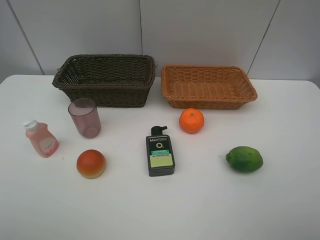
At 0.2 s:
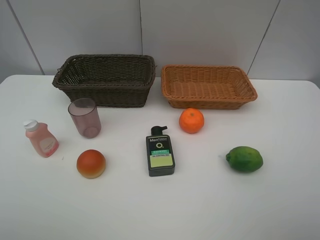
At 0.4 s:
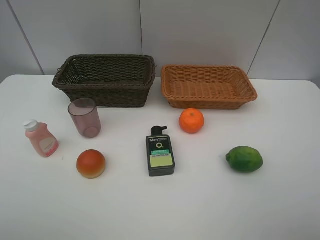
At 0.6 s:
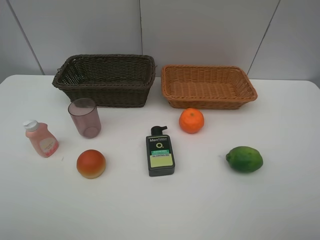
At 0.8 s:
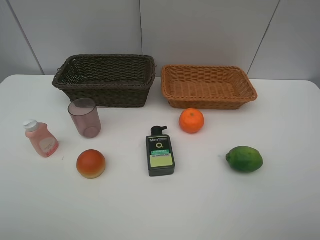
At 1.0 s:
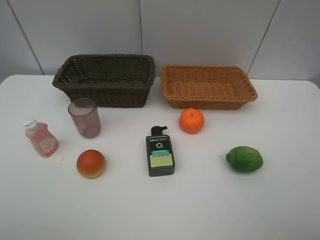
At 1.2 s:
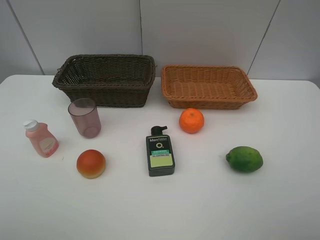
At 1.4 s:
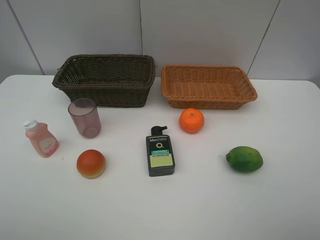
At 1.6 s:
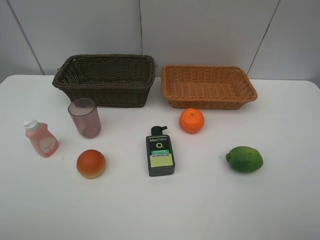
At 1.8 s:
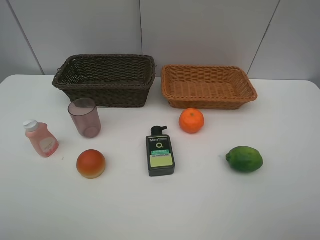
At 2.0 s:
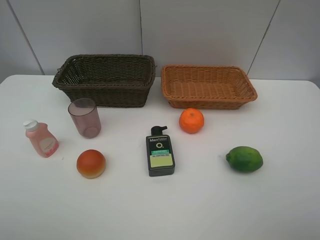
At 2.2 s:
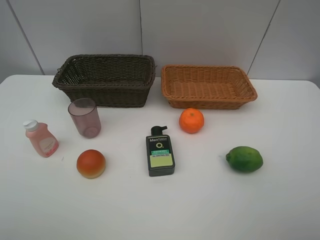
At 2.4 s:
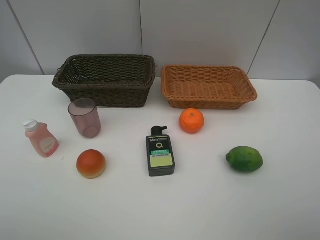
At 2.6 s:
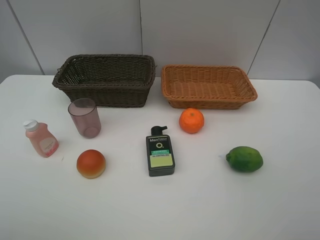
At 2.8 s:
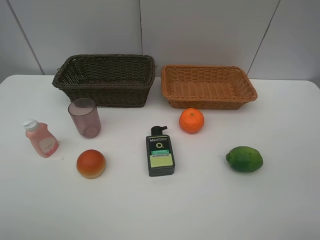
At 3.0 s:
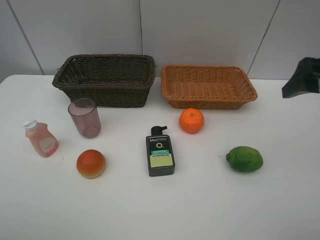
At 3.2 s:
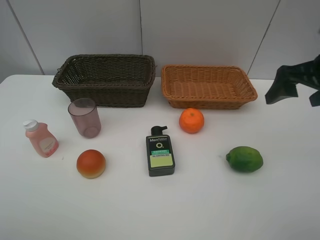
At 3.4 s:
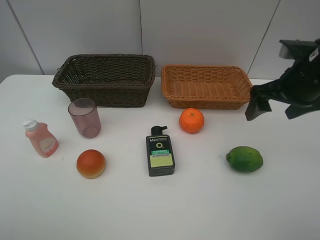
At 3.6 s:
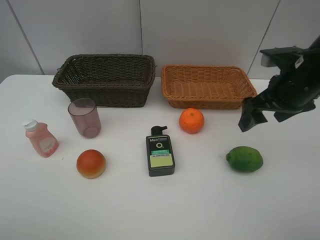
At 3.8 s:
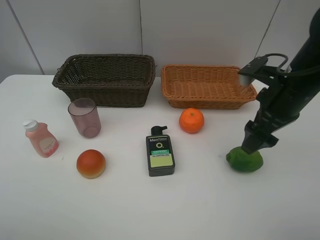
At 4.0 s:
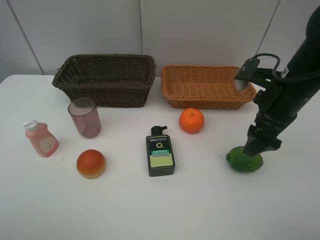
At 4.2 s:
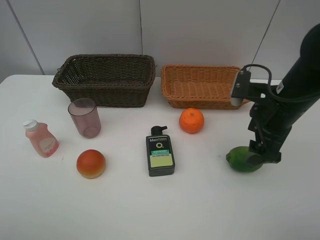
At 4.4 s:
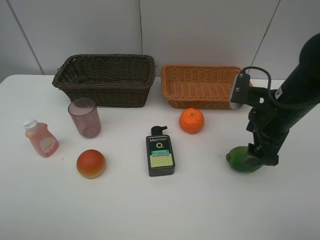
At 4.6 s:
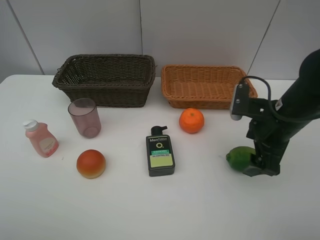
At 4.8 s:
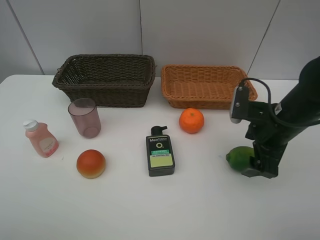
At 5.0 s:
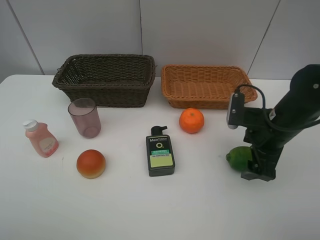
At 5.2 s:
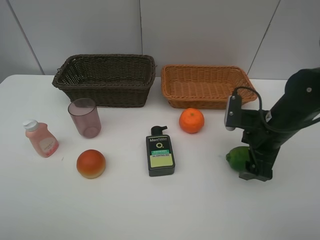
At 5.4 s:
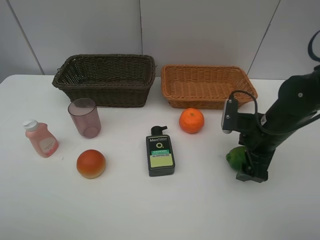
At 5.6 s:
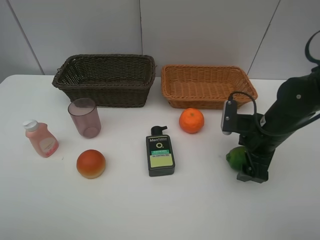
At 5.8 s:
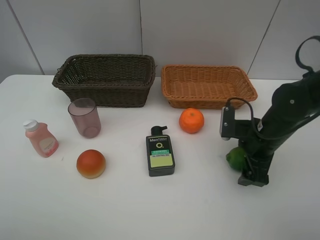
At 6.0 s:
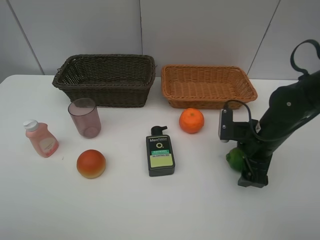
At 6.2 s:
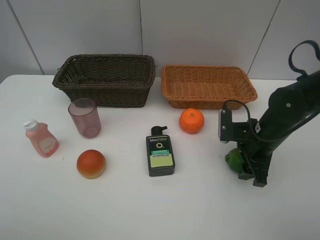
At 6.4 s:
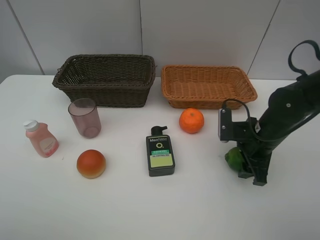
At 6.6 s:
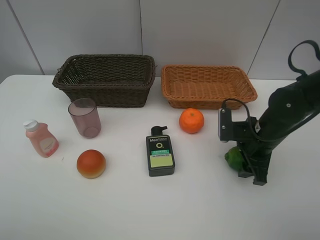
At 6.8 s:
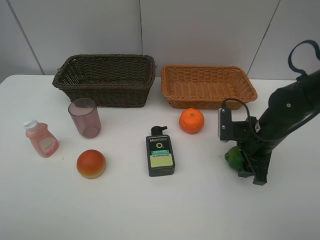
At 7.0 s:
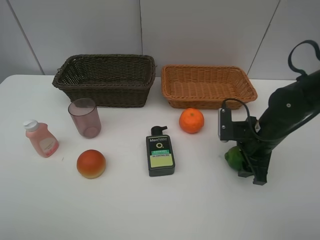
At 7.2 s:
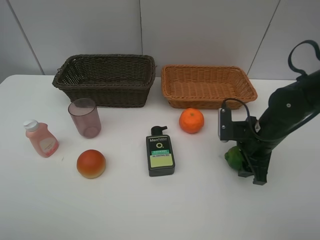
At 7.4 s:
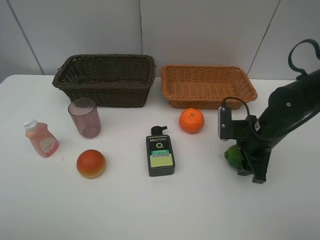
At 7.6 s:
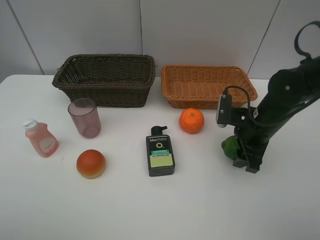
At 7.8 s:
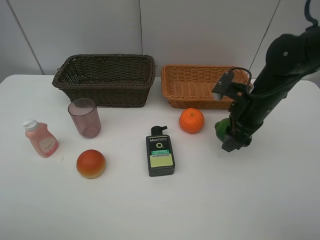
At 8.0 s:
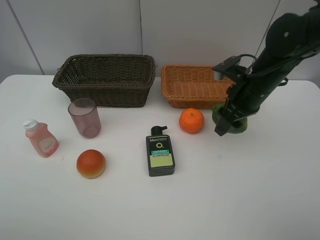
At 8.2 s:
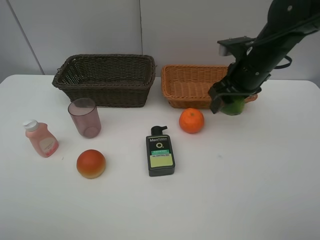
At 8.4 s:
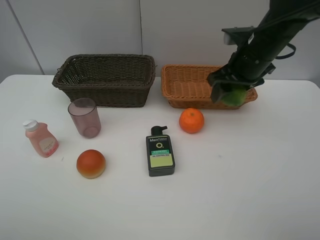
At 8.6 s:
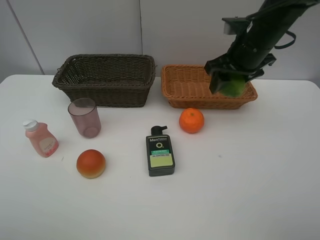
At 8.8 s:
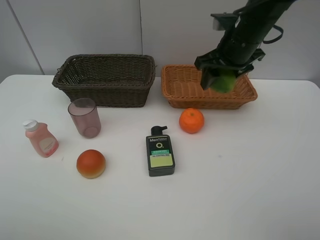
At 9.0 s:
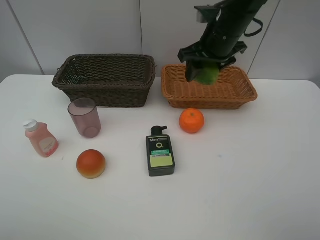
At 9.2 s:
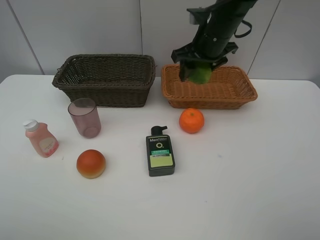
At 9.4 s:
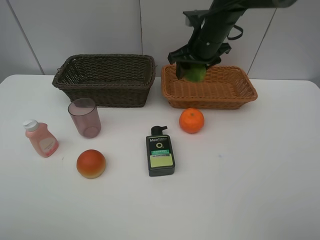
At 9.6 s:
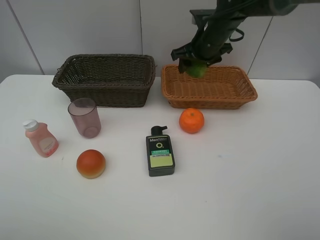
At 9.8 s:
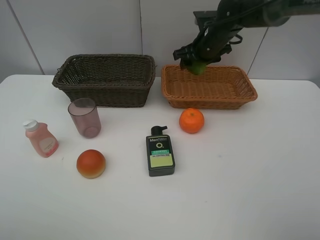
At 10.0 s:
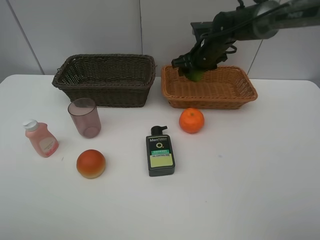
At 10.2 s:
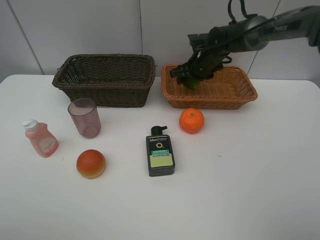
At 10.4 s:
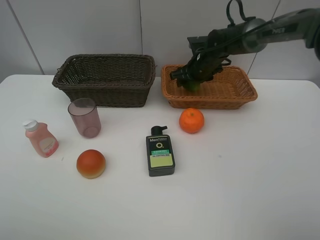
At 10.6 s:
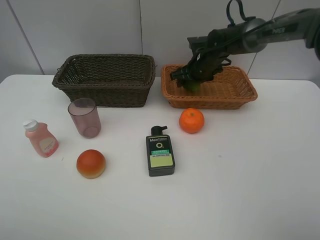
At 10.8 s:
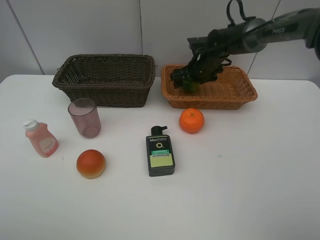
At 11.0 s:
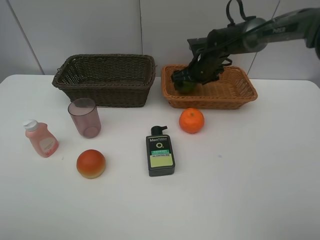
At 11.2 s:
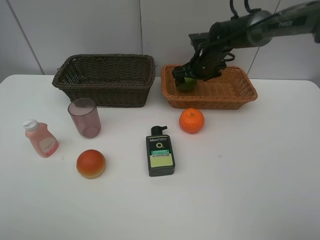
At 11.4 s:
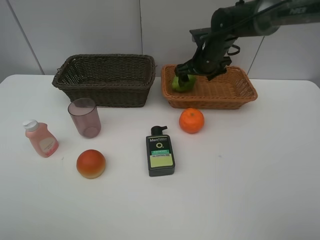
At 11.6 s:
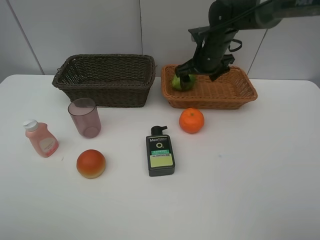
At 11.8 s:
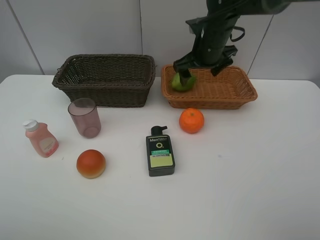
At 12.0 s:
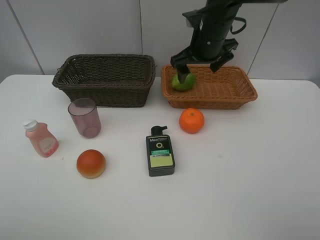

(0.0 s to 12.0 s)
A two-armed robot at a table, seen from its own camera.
Task of the whole recording: place multiple objects separately in different baskets.
0.0 s - 1.6 s: Neither gripper changes place.
1.6 s - 3.0 s: The right gripper travels forward by about 20 cm.
3.0 s - 4.4 s: The right gripper shifts some 15 cm downward and to the left.
4.4 s - 6.0 s: The right gripper is displaced downward by some 10 cm.
6.0 s - 7.6 s: The right gripper closes its fingers.
7.6 s - 9.0 s: The right gripper travels upward, forward and to the left by about 20 cm.
9.0 s - 10.4 s: The right gripper moves downward and forward, about 15 cm.
10.4 s - 12.0 s: The right gripper heads upward and backward, covering some 15 cm, and opens.

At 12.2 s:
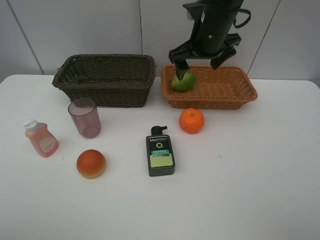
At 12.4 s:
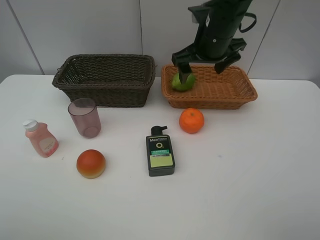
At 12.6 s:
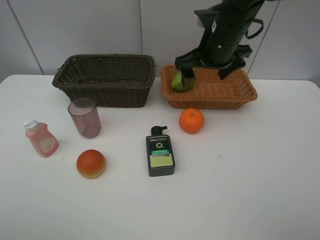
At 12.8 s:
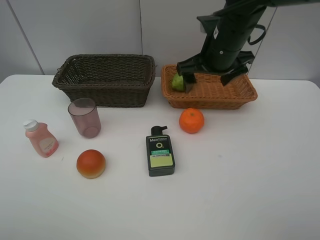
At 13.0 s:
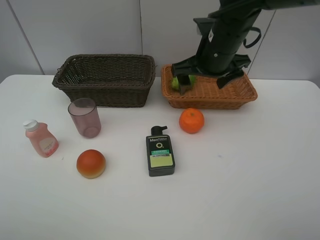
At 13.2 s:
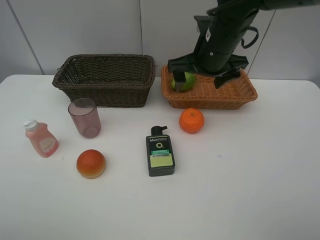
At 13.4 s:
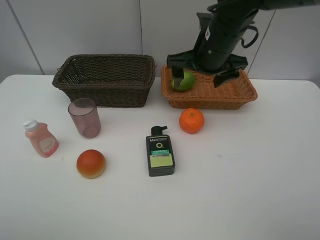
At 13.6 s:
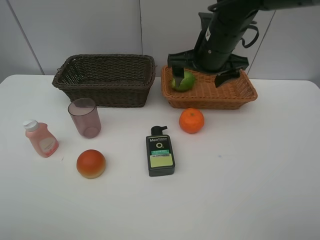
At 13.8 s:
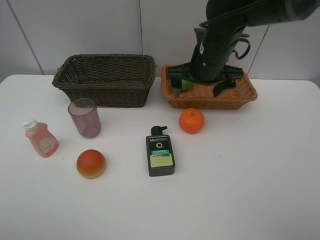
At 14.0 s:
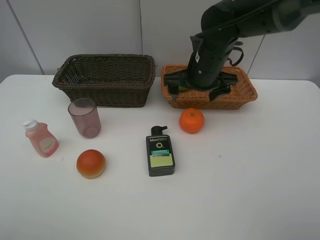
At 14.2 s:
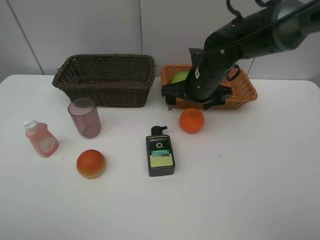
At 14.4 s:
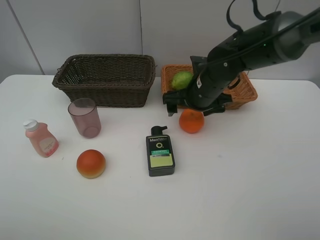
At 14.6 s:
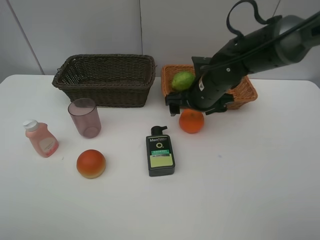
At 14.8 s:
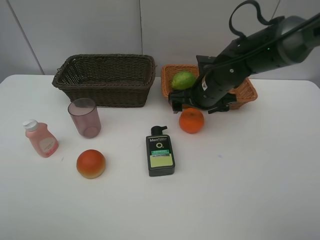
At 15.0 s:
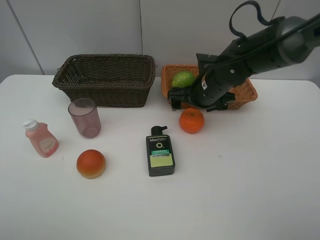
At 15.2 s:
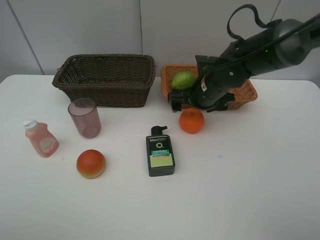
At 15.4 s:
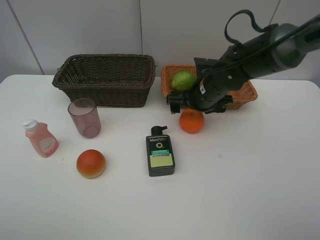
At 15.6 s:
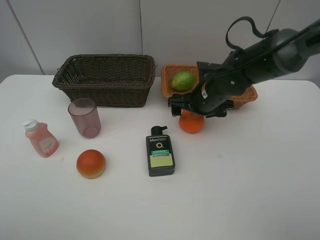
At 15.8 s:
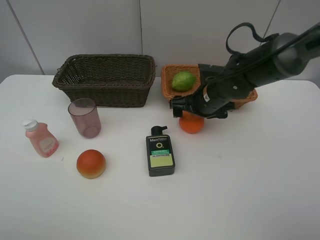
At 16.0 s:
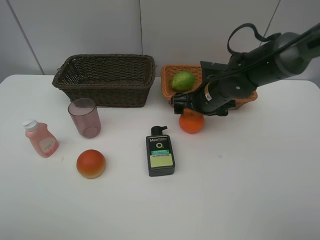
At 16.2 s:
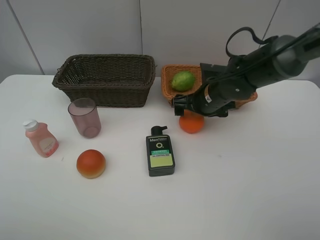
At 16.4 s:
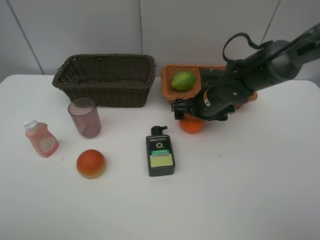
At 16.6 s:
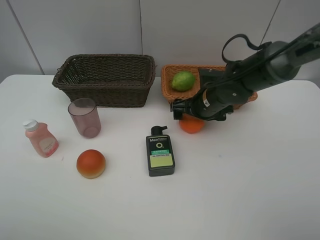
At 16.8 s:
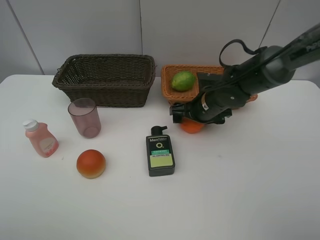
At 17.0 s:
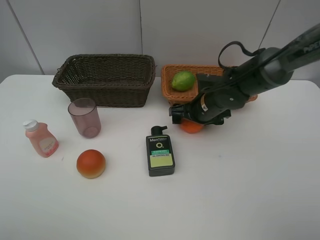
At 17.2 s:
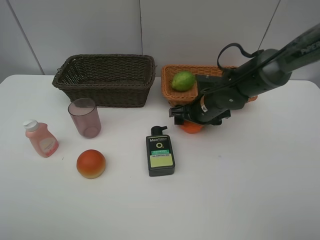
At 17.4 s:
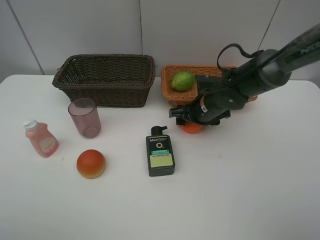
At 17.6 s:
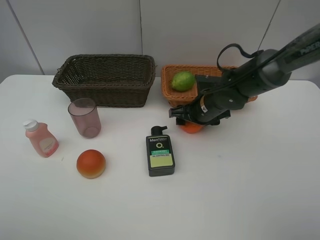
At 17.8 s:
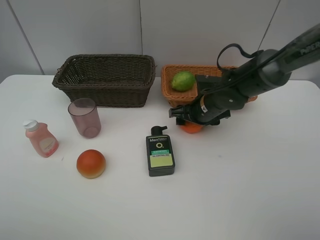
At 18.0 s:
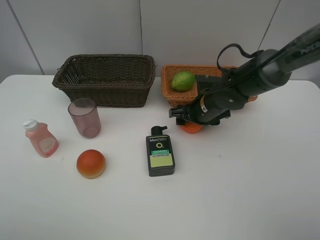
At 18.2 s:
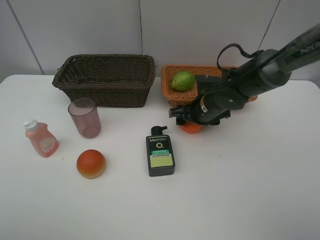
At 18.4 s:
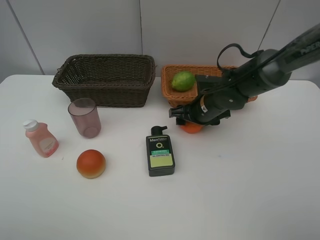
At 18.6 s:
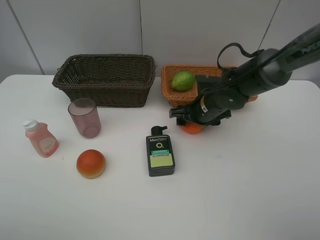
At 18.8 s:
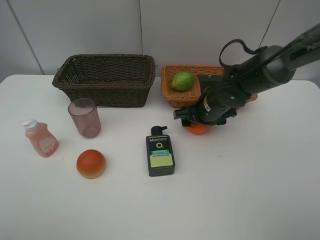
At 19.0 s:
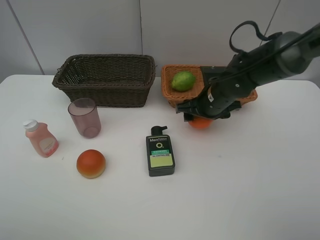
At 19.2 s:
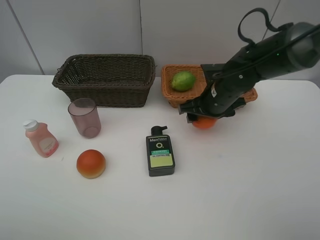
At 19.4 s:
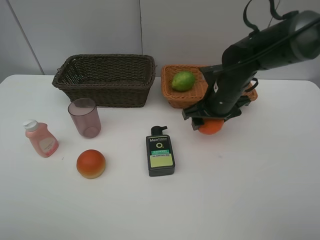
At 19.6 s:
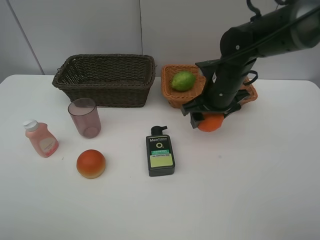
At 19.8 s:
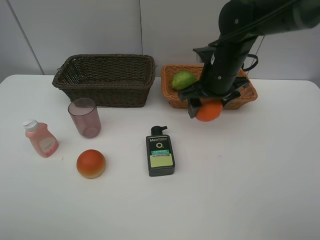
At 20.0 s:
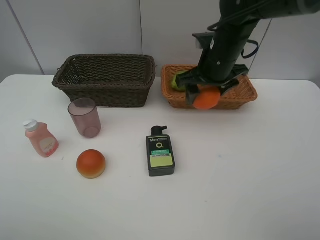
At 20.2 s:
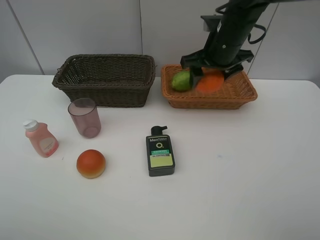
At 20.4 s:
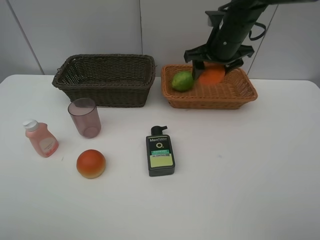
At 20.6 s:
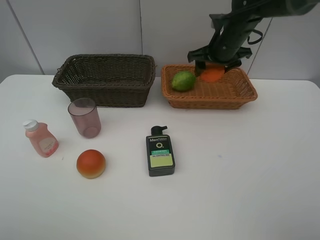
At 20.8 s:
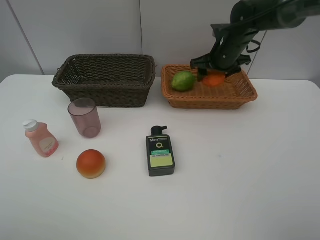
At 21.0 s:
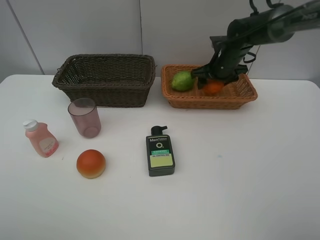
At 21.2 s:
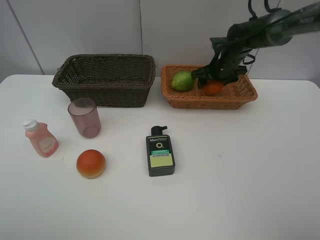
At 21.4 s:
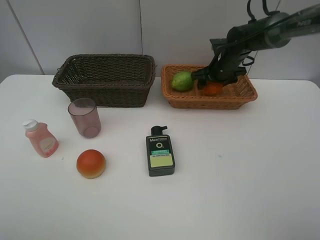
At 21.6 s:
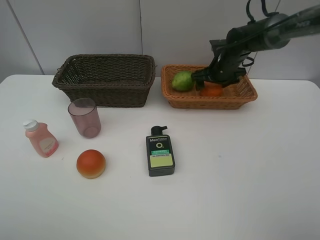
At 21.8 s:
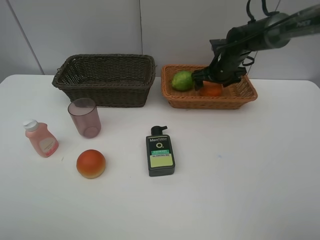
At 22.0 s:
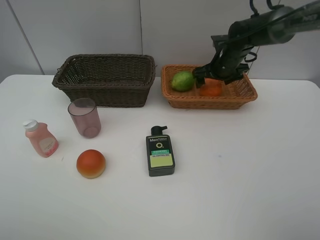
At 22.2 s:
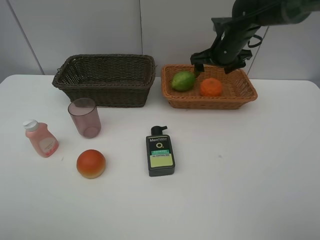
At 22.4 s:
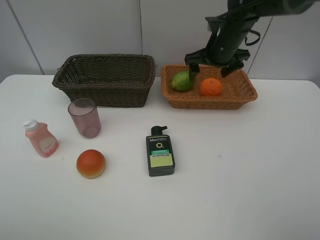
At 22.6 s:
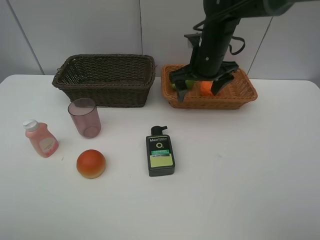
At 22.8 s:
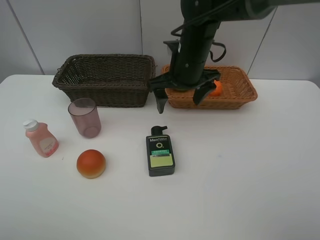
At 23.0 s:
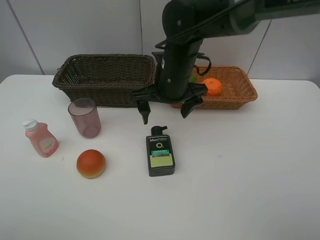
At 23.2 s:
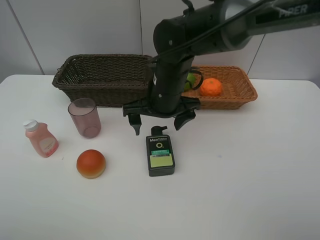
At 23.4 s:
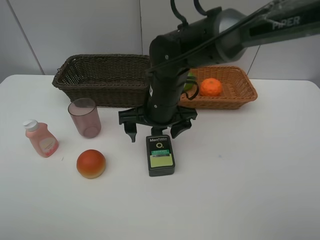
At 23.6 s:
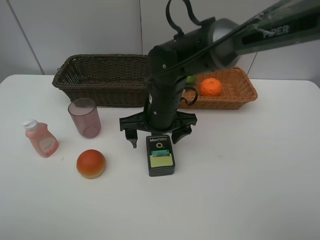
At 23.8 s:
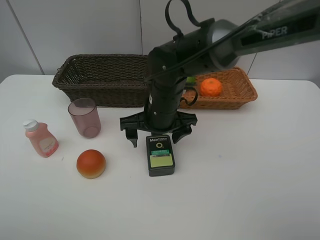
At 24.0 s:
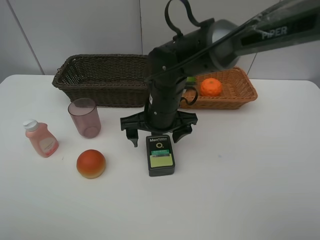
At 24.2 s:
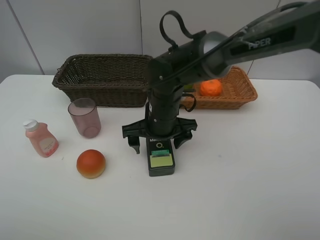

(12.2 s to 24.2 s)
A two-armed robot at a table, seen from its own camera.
Task of the whole recording: place multiple objects separately in different baskets.
12.2 s - 13.8 s: The right gripper ends up roughly 5 cm from where it was.
13.8 s - 15.2 s: The right gripper goes roughly 5 cm downward.
15.2 s - 16.6 s: The grippers stay close to where they were, moving slightly.
16.6 s - 18.2 s: The right gripper closes up.
18.2 s - 19.8 s: The right gripper heads upward, covering approximately 10 cm.
19.8 s - 21.2 s: The right gripper heads forward, to the right and downward, covering approximately 15 cm.
21.2 s - 22.6 s: The right gripper heads backward, to the left and upward, covering about 15 cm, and opens up.
22.6 s - 24.2 s: The right gripper travels to the left, downward and backward by about 15 cm.
